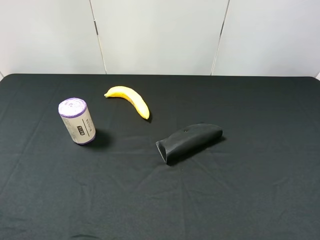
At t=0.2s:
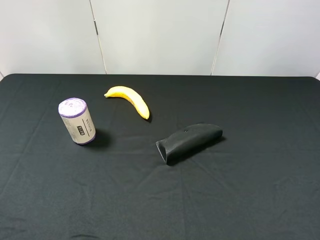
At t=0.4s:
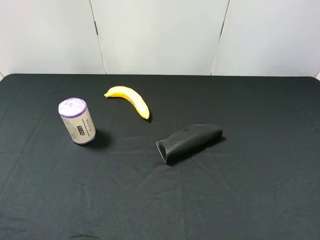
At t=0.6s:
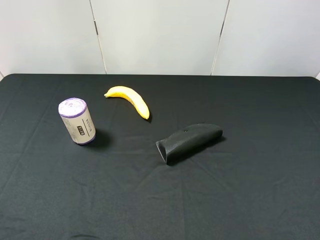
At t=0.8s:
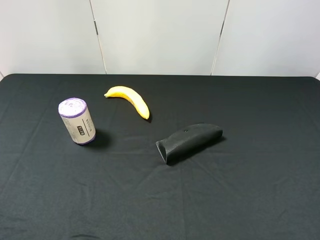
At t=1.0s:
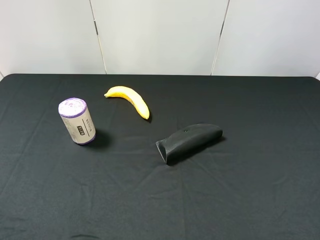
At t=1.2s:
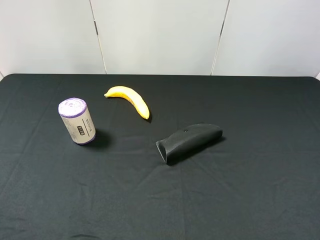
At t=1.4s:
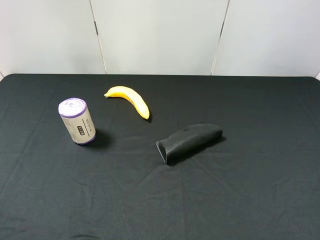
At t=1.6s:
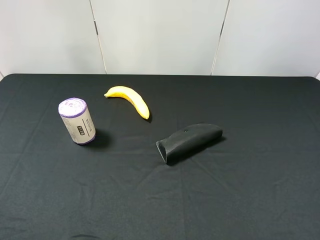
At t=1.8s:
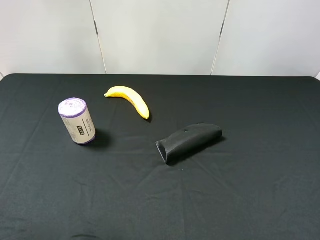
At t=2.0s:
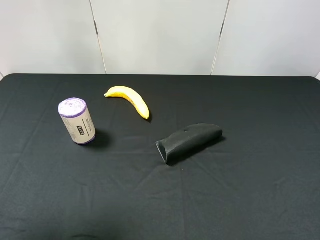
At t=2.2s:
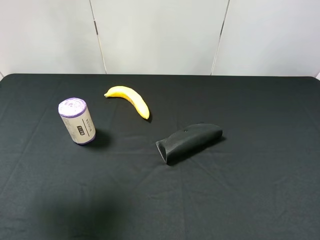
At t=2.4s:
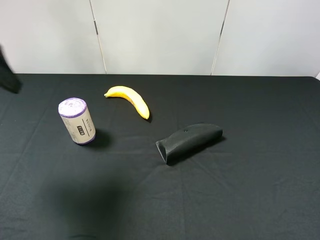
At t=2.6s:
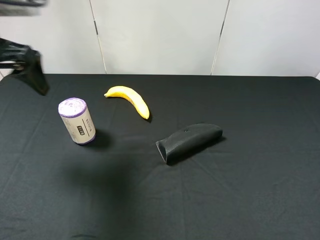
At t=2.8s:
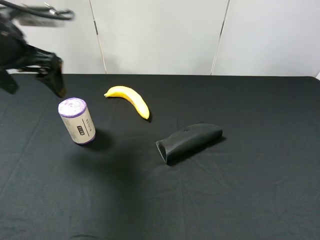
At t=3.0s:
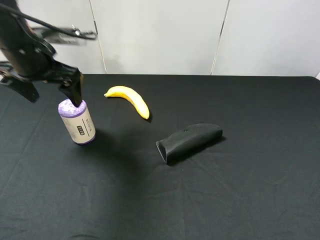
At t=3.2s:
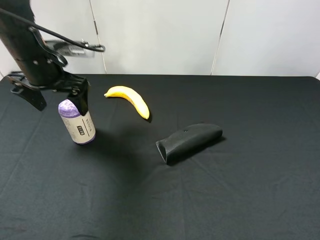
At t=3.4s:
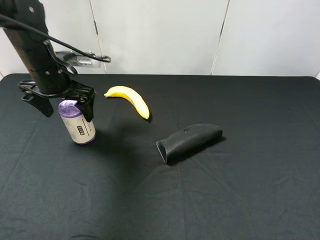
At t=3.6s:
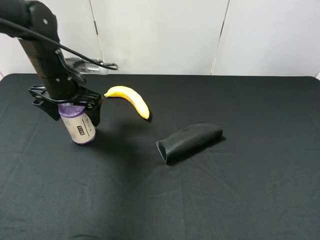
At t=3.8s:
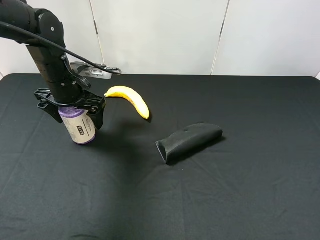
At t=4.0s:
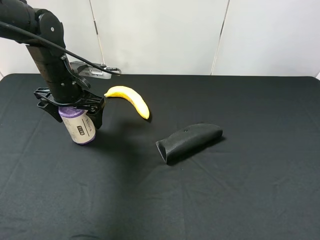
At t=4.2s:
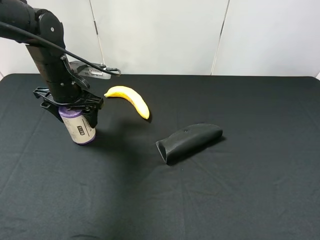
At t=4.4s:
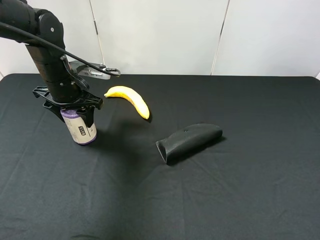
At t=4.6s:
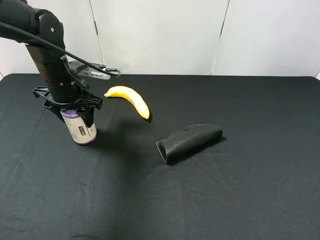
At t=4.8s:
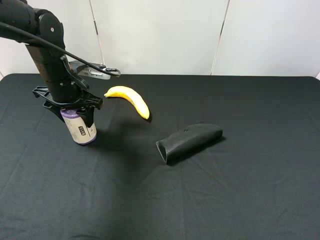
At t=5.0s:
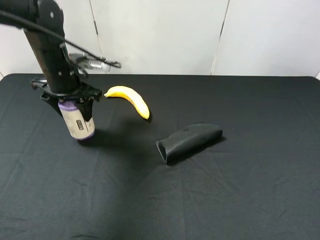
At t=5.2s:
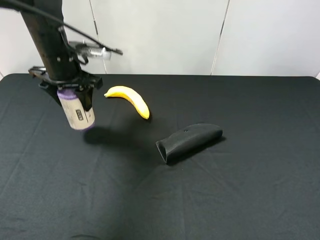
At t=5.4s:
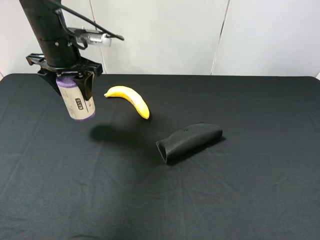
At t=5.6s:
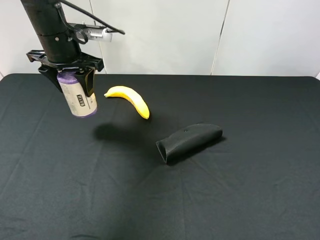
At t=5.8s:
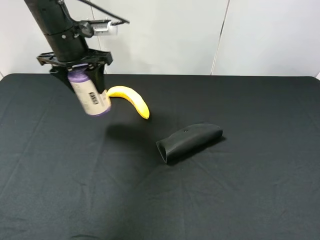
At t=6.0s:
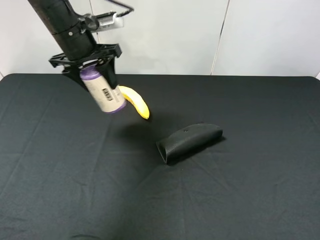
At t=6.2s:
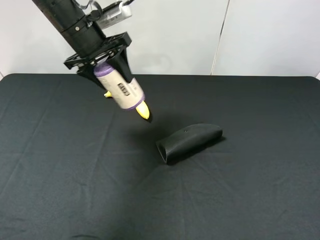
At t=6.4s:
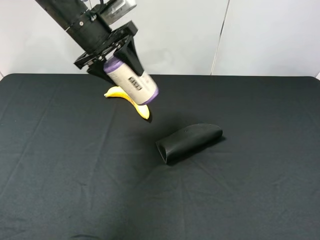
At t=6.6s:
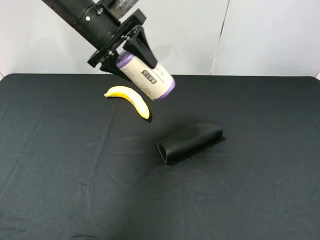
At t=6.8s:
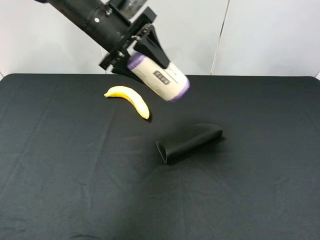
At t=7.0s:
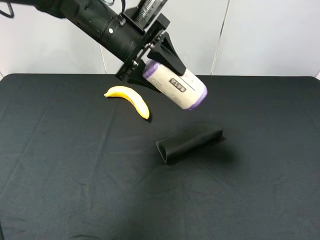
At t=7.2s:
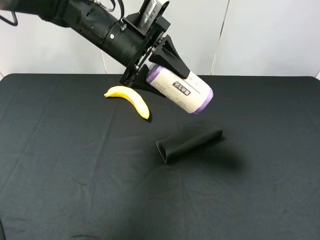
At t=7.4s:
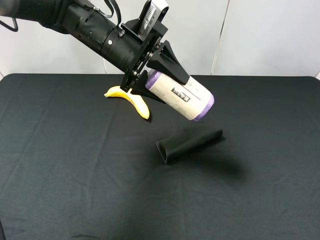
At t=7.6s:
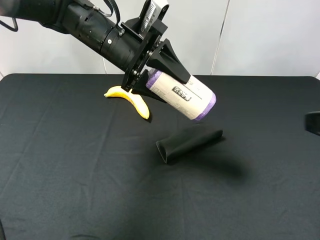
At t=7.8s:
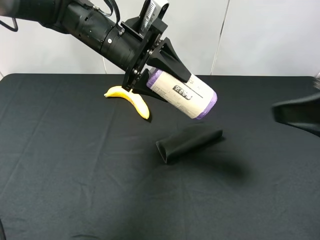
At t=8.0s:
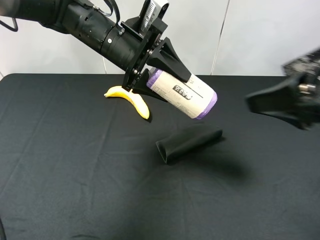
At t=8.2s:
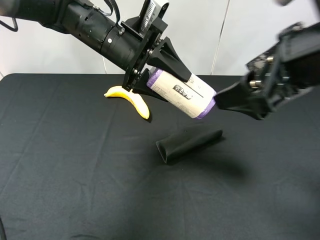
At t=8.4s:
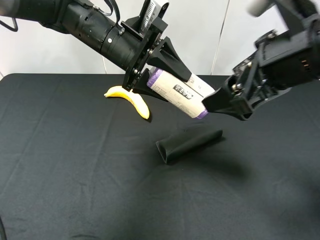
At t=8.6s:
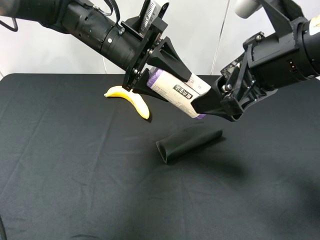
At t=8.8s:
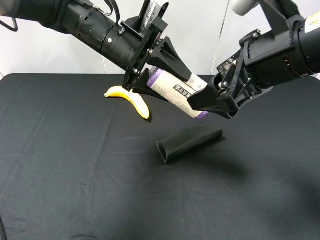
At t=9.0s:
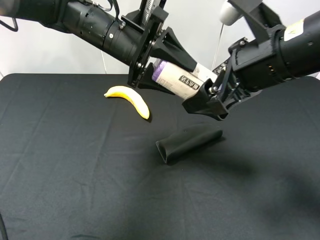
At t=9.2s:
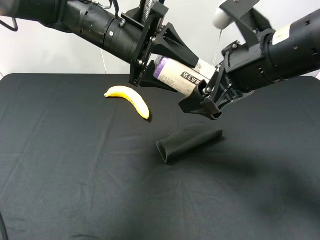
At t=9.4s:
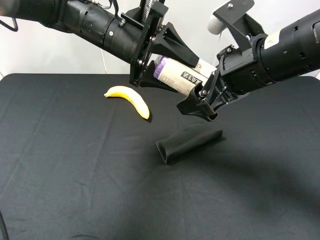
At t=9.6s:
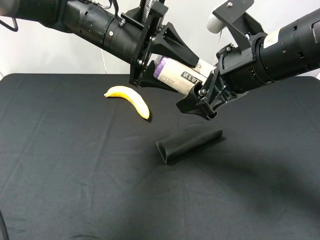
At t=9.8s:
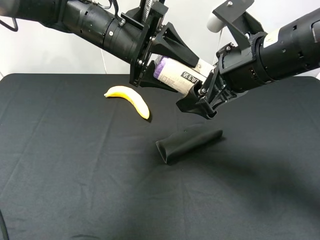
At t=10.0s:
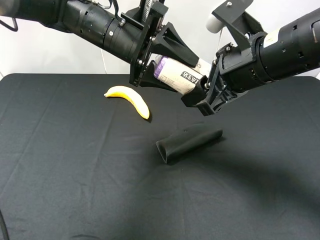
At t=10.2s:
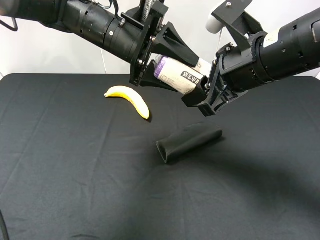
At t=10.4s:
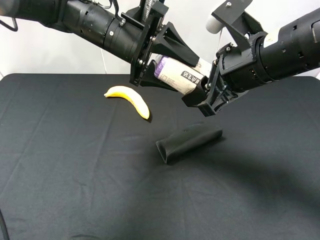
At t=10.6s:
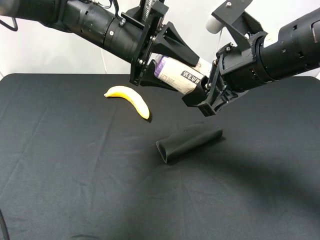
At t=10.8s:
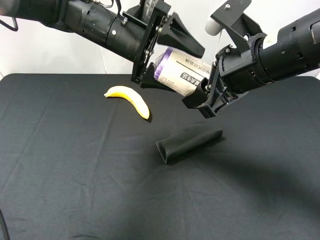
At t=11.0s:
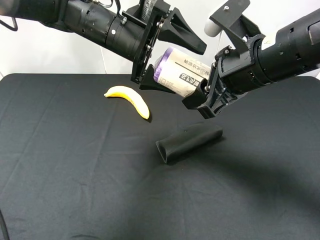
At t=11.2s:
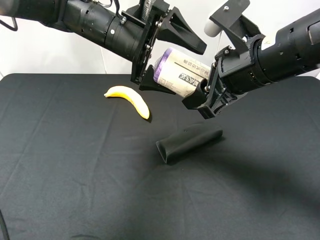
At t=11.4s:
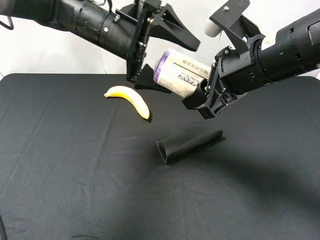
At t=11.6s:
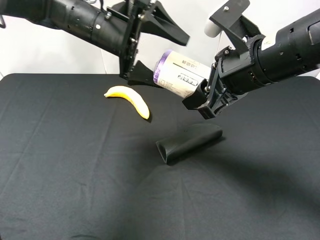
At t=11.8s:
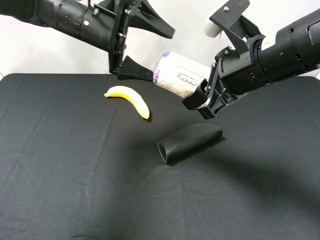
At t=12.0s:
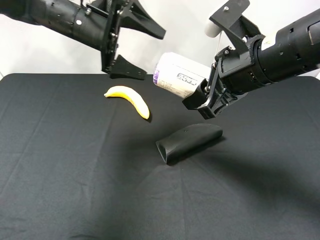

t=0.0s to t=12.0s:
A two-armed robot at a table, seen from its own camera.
Task of the whole recording: use the left gripper to pick up the item and transfer it from the left gripper to the right gripper.
t=1.6s to t=3.0s: The left gripper travels forward by roughly 30 cm.
t=3.0s to t=4.4s: The left gripper shifts some 5 cm downward, and closes.
t=4.4s to t=6.0s: The left gripper shifts approximately 10 cm upward.
t=6.0s to t=7.6s: The left gripper is displaced to the right by some 10 cm; the right gripper is displaced forward by about 10 cm.
t=7.6s to t=9.0s: The right gripper goes about 20 cm forward and to the left.
t=9.0s to t=10.4s: The right gripper closes up.
t=10.4s to t=12.0s: The left gripper travels to the left by approximately 5 cm, and opens up.

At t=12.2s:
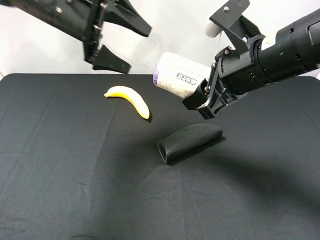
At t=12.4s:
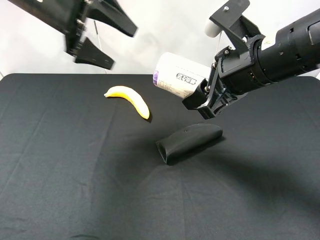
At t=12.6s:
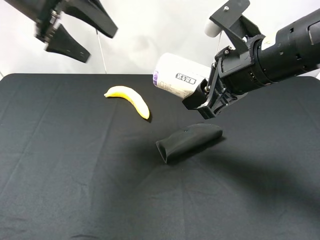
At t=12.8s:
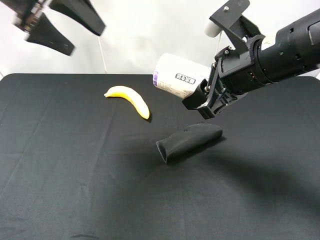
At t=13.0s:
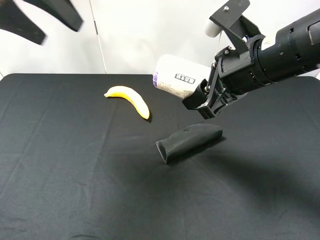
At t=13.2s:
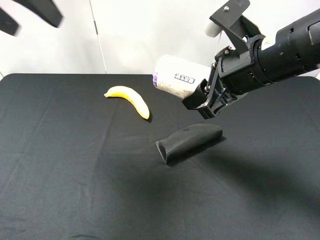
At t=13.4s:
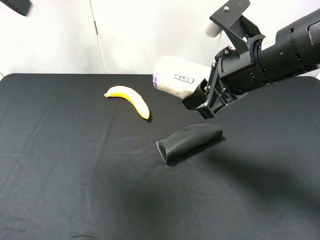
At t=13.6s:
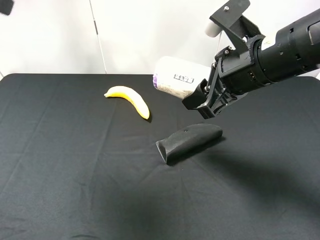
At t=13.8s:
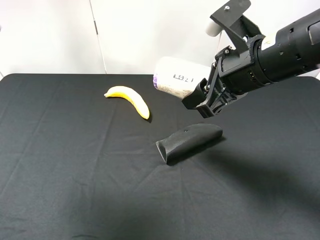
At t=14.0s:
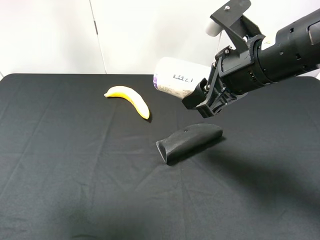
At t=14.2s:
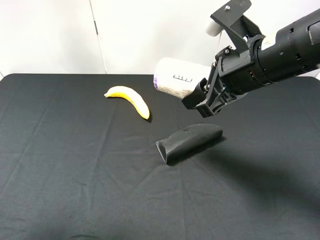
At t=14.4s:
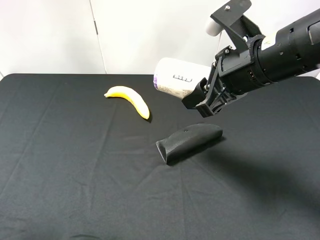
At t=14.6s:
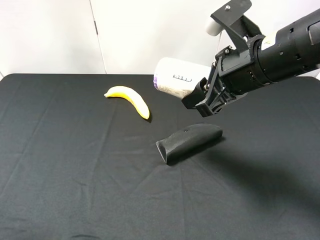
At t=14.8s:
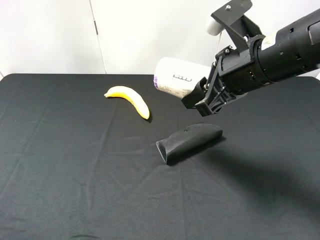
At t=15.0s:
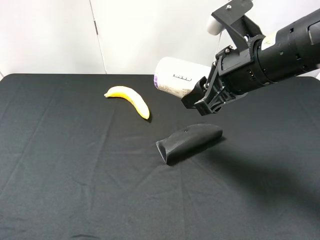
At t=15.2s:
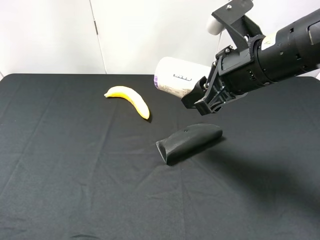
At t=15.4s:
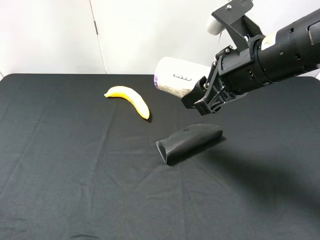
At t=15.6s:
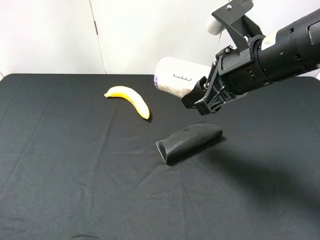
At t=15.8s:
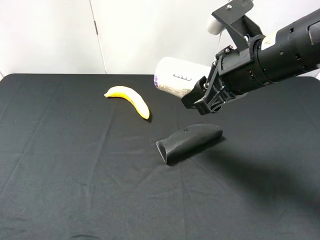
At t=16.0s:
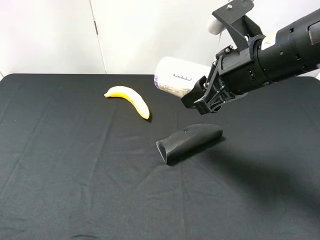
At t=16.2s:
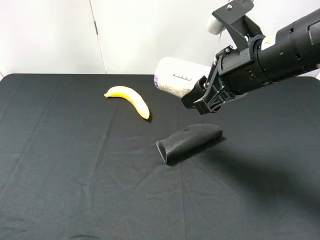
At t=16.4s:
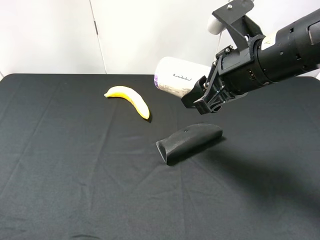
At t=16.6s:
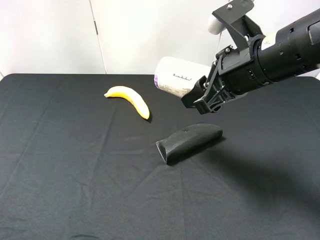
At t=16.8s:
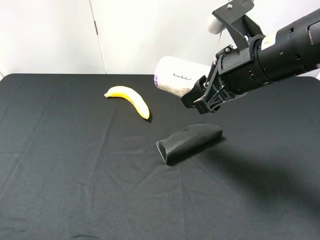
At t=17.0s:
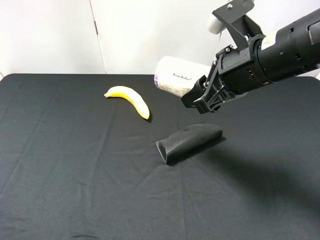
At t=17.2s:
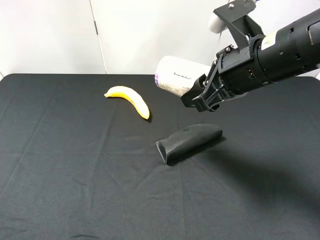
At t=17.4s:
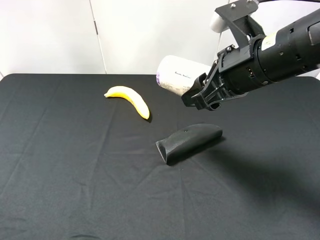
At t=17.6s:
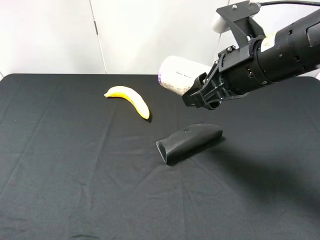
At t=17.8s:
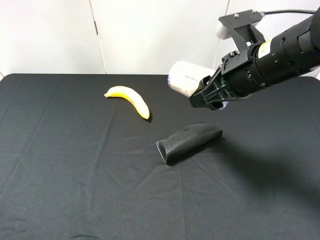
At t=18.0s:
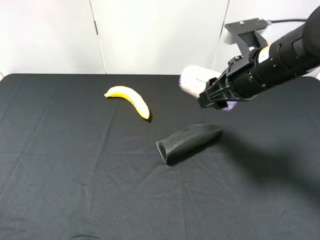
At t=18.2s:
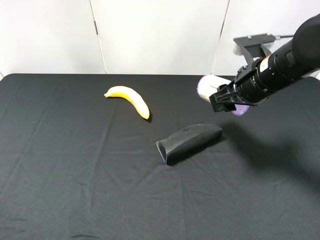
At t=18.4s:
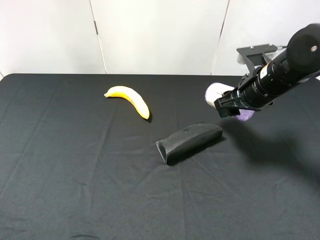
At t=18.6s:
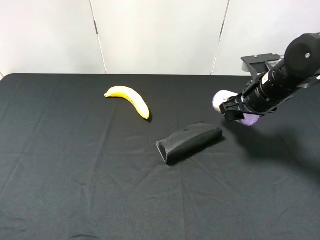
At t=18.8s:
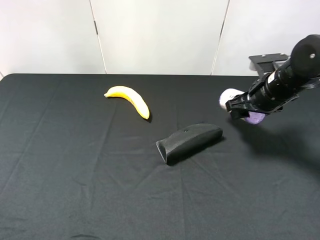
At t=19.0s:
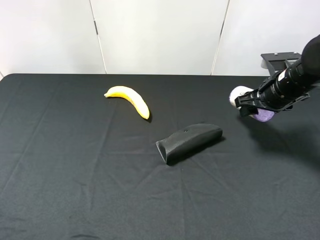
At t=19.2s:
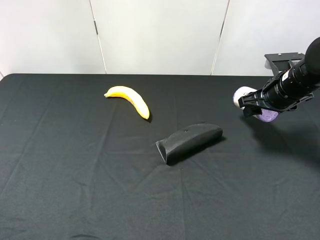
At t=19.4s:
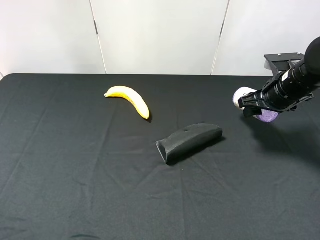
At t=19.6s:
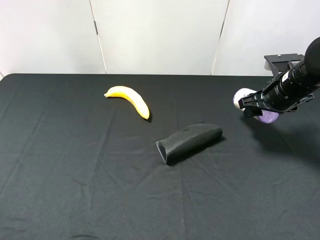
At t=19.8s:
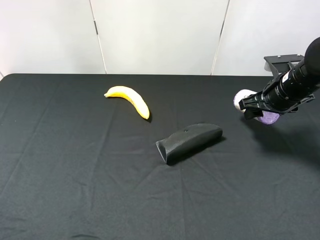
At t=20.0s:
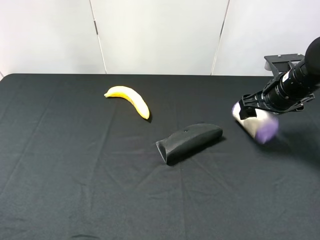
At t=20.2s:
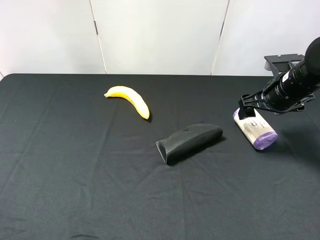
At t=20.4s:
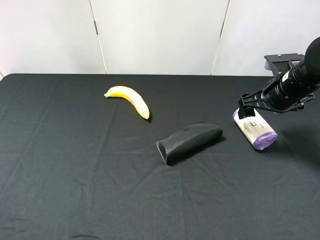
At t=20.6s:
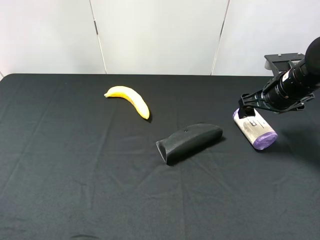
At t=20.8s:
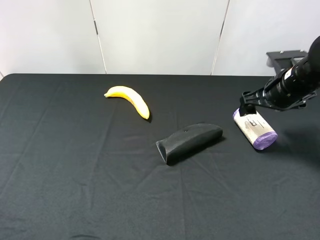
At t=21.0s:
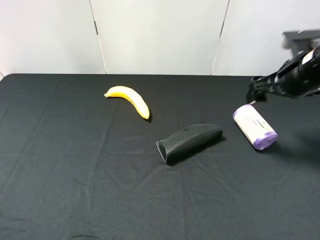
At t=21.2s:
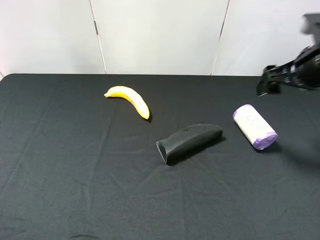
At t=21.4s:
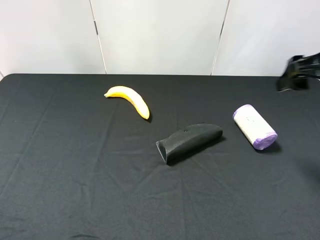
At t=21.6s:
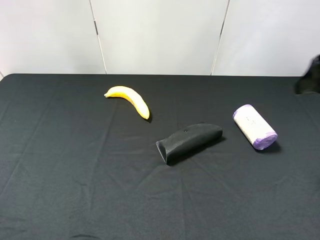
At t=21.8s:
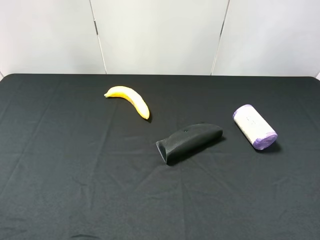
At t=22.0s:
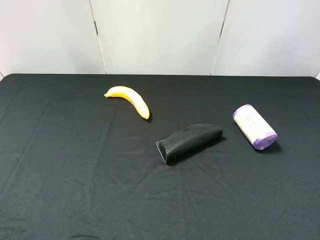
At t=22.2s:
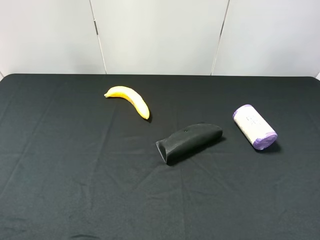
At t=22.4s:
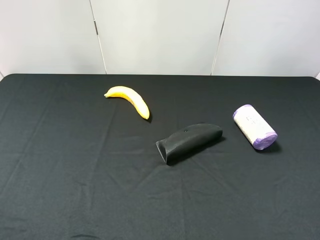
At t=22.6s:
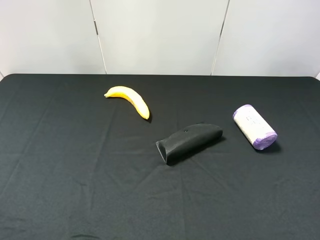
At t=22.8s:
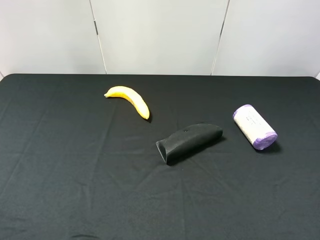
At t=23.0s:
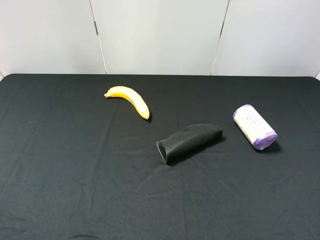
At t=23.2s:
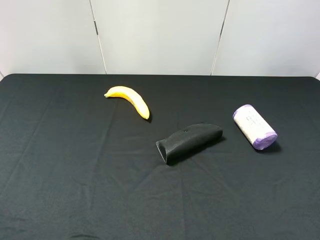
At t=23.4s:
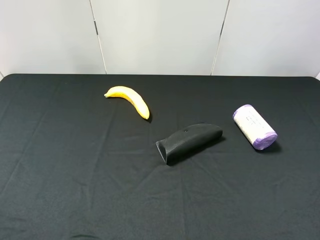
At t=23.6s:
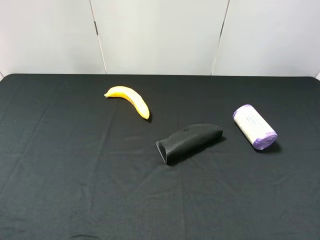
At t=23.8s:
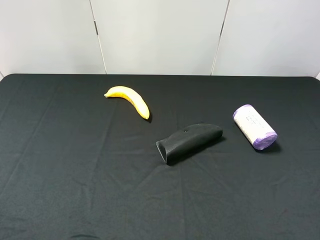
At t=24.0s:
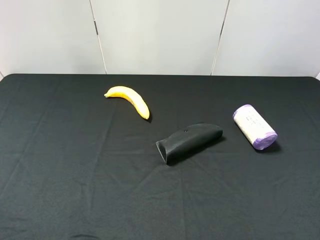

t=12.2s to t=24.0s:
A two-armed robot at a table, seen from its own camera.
Task of the whole recording: use the left gripper to pick up the item and transfer it from the left gripper to the right gripper.
t=12.2s to t=13.6s: The left gripper heads backward, upward and to the left, covering about 25 cm.
t=13.6s to t=15.2s: The left gripper shifts some 25 cm backward and downward.
t=15.2s to t=16.6s: Neither gripper changes place.
t=16.6s to t=18.2s: The right gripper travels downward, forward and to the right by about 10 cm.
t=18.2s to t=19.6s: The right gripper shifts roughly 5 cm to the right.
t=19.6s to t=21.0s: The right gripper goes roughly 5 cm upward, and opens up.
t=21.0s to t=22.6s: The right gripper goes about 30 cm backward.
